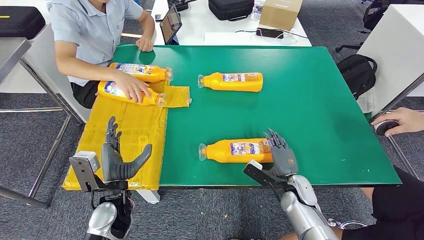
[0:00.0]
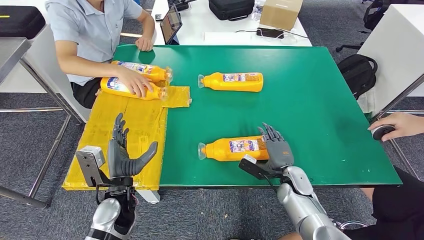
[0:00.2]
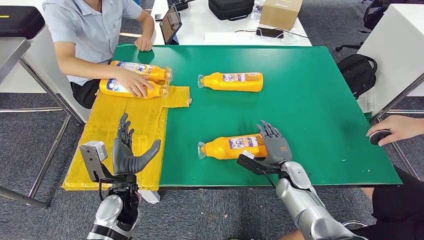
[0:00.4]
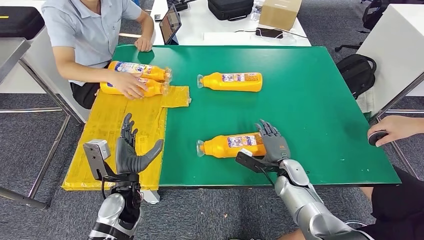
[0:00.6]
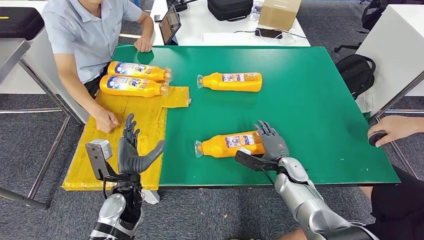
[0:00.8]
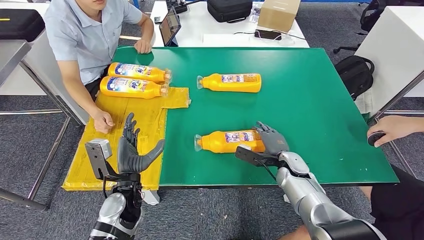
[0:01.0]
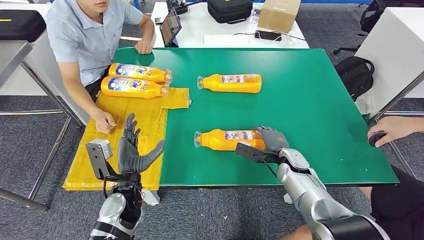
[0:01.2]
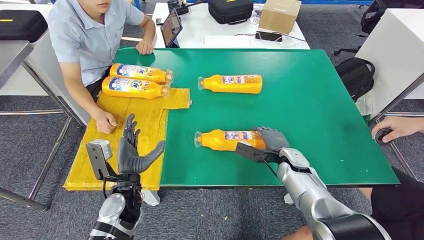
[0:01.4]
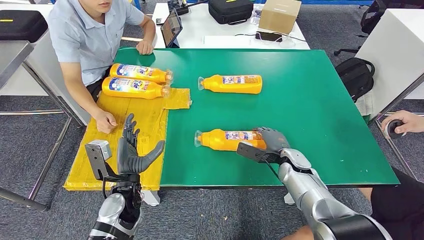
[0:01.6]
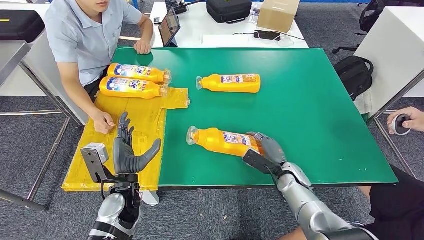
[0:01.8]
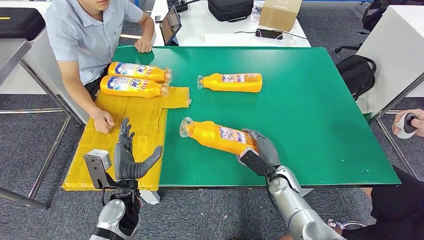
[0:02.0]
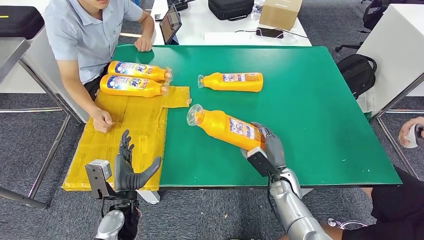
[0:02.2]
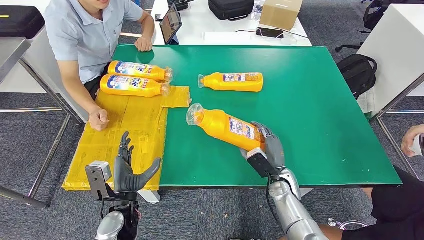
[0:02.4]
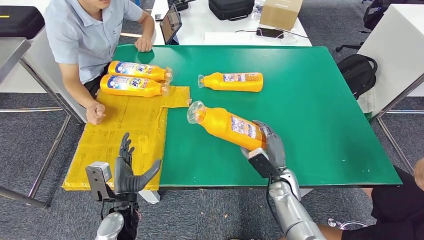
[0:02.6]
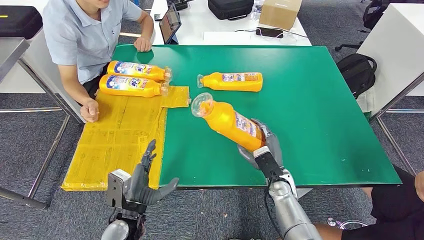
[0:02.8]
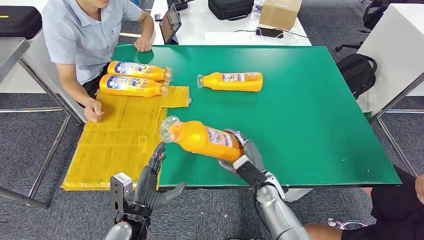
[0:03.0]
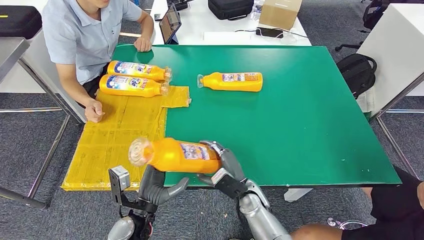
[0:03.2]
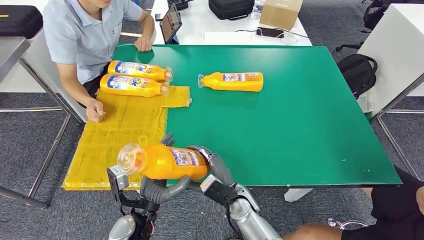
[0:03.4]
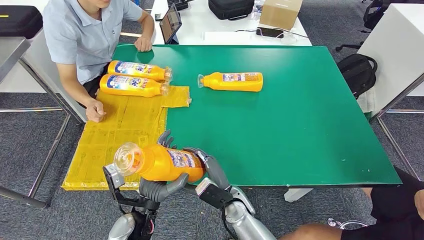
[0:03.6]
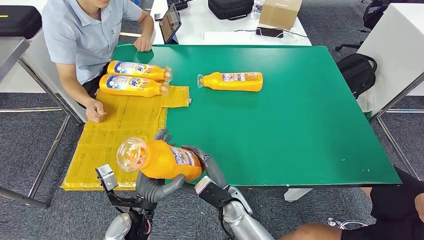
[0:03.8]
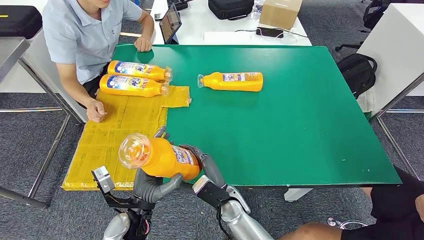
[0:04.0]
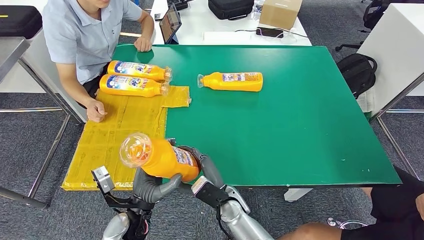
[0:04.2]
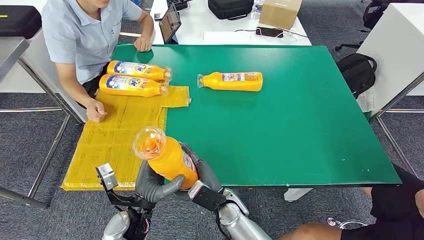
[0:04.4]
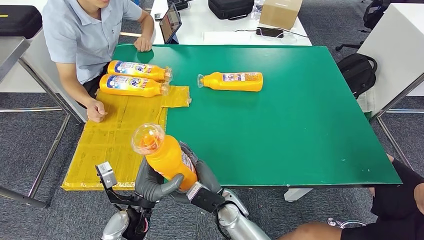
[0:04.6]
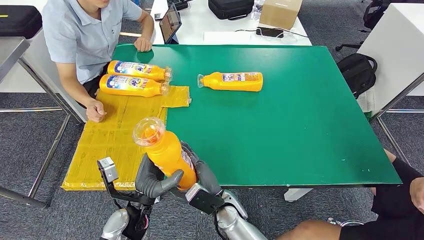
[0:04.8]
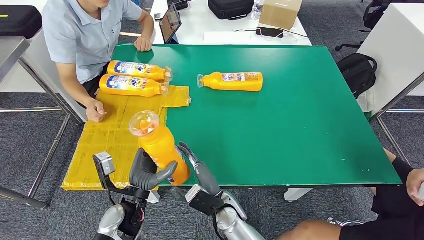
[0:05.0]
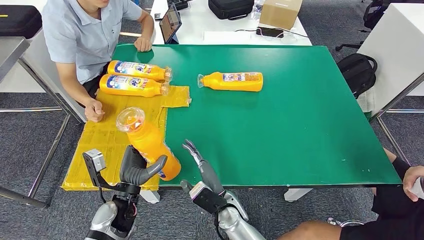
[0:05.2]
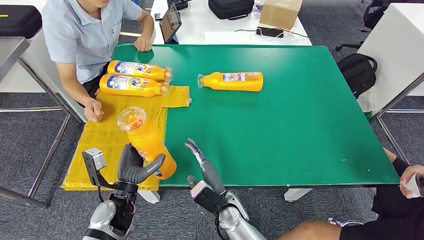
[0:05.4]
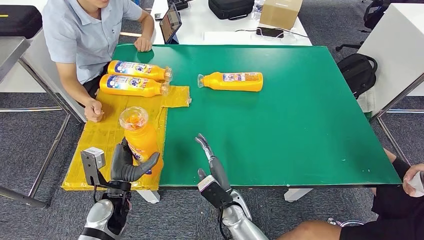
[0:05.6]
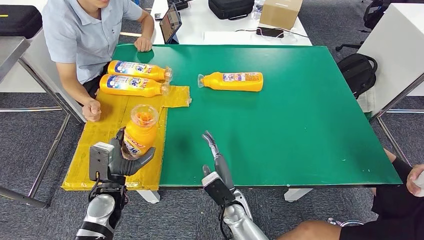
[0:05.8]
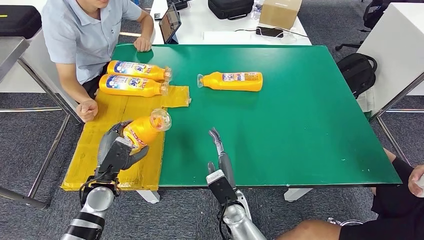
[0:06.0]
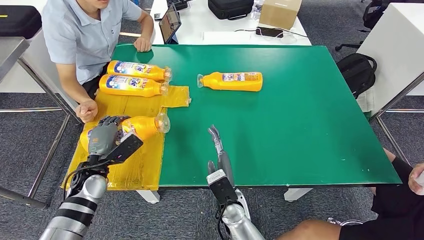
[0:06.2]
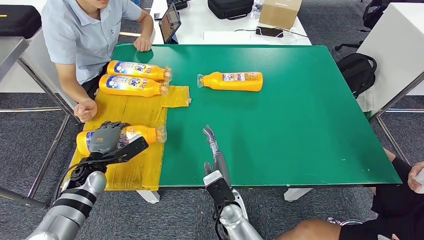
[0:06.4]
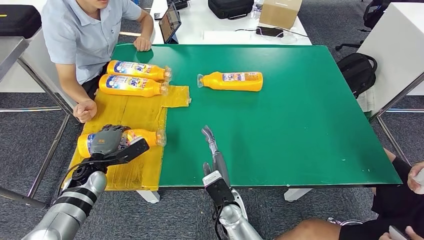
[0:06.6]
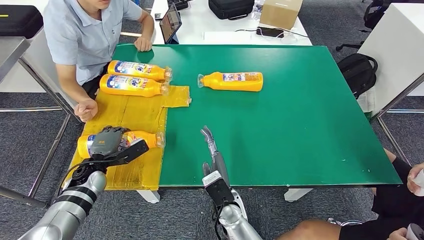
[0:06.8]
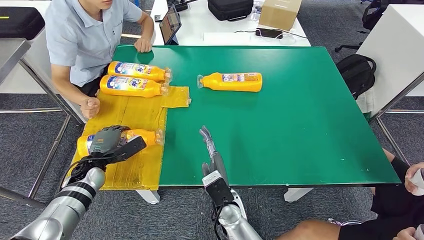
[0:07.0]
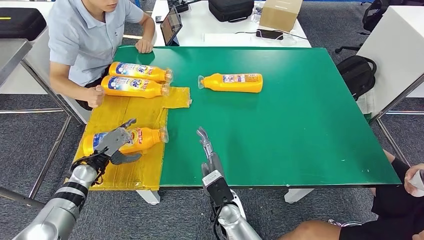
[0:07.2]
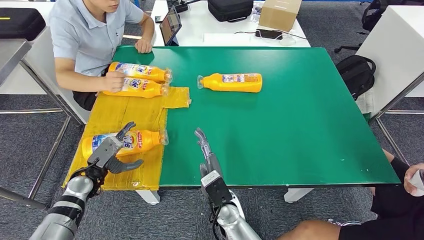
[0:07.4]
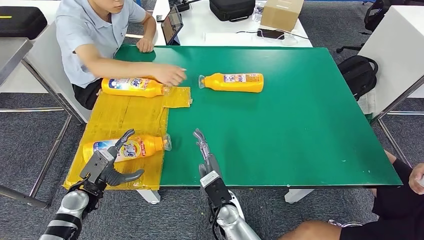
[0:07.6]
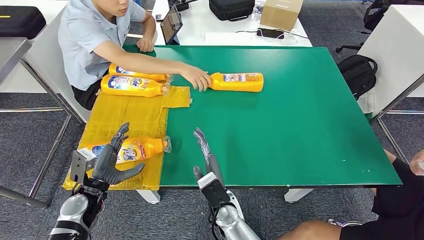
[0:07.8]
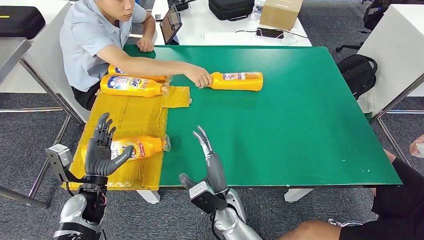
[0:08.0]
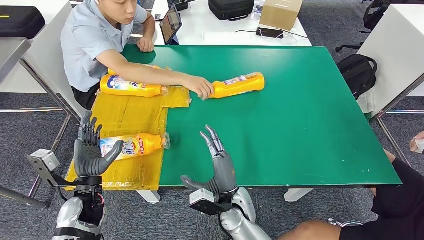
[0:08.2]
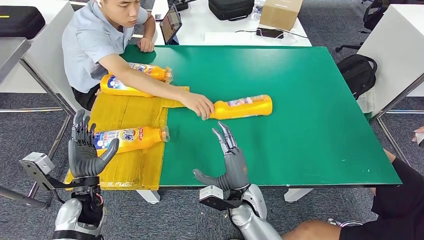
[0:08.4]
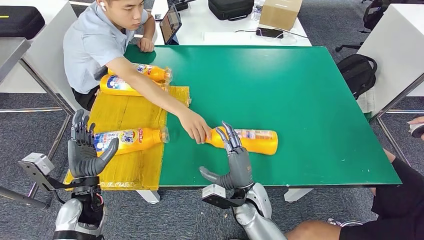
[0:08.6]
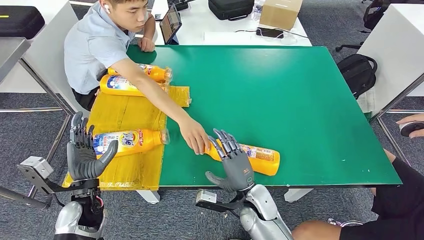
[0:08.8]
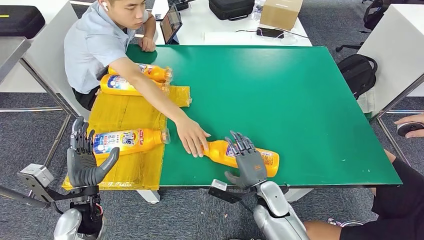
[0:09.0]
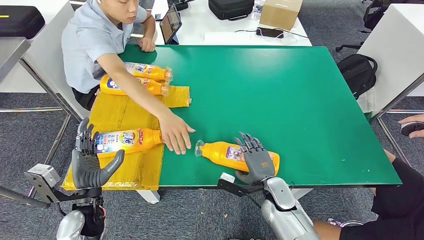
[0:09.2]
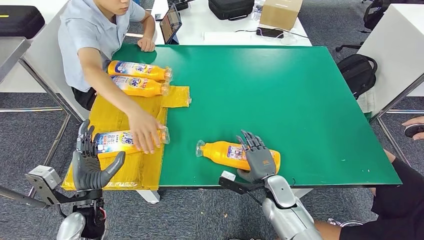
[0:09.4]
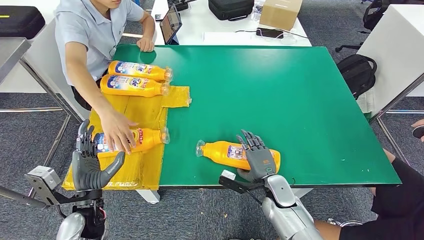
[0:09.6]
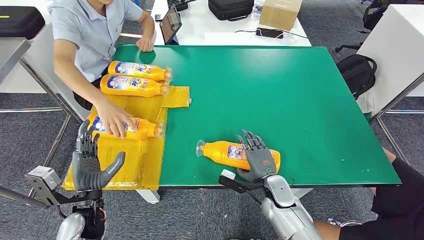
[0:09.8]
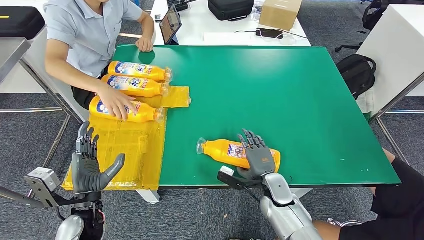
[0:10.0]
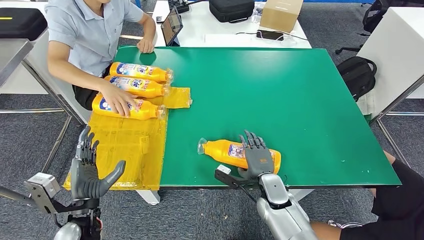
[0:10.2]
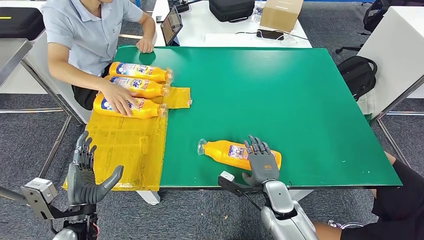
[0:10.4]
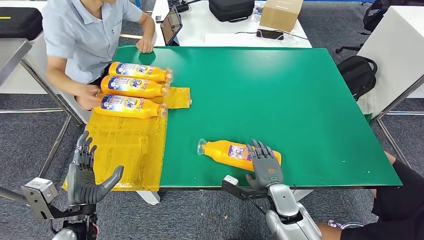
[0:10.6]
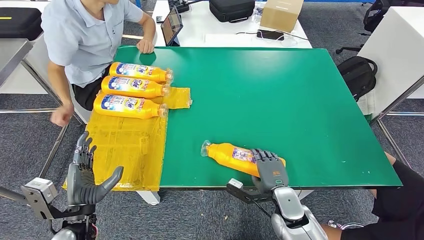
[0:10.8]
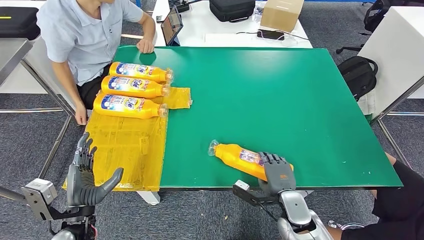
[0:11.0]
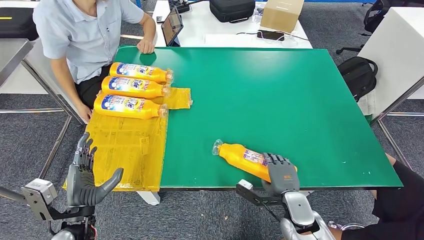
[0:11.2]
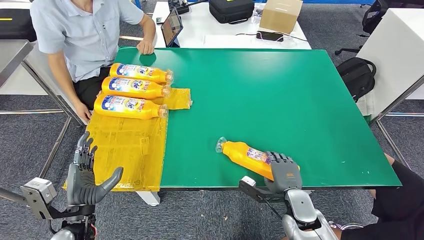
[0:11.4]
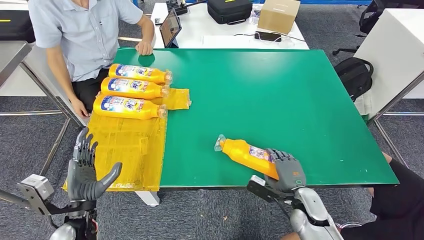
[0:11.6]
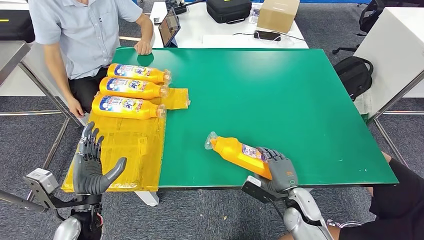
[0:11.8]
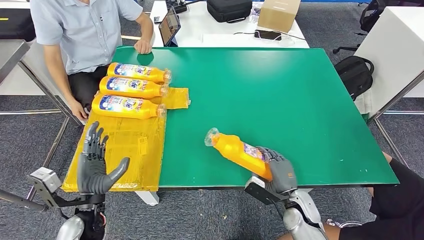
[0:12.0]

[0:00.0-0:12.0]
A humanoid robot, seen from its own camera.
Step, 0:01.2 to 0:03.2: Pick up the fast-moving consumer goods bottle from the table.
Step, 0:04.4 to 0:07.6: Flip the fast-moving consumer goods bottle to the front side.
0:03.0 to 0:04.4: The right hand travels to the left by approximately 10 cm.
0:04.4 to 0:06.0: The left hand shifts roughly 15 cm to the left and forward.

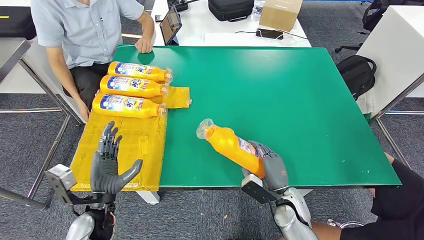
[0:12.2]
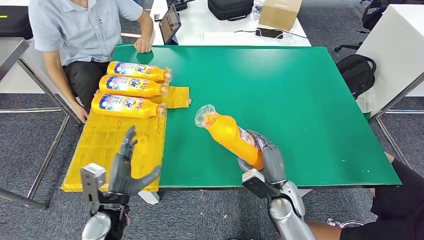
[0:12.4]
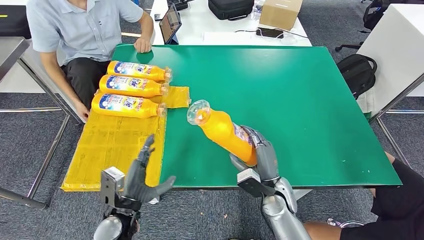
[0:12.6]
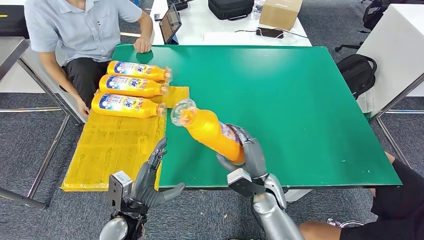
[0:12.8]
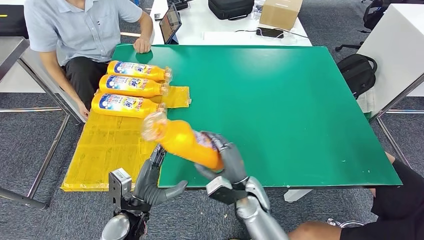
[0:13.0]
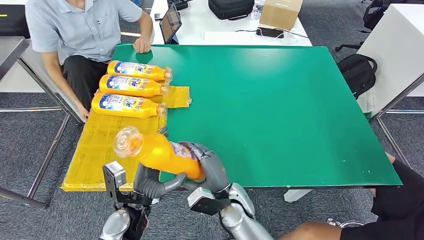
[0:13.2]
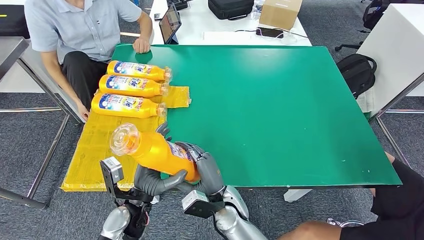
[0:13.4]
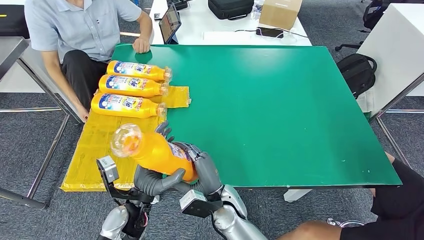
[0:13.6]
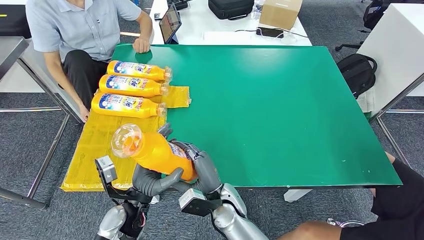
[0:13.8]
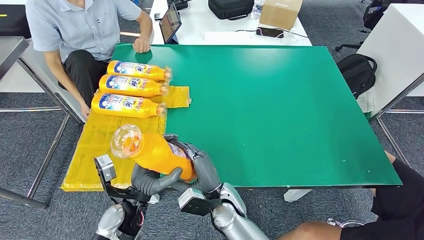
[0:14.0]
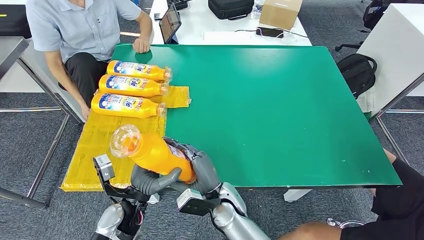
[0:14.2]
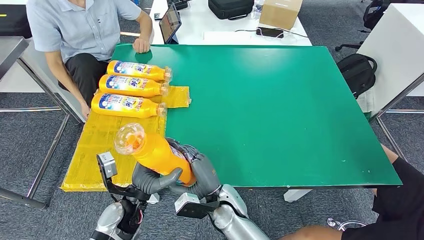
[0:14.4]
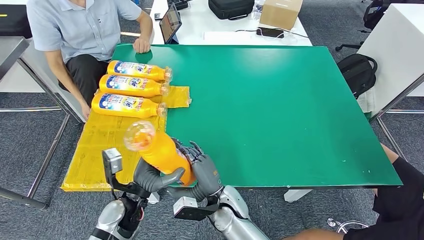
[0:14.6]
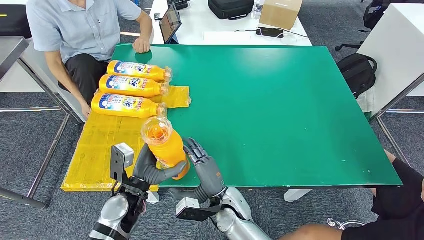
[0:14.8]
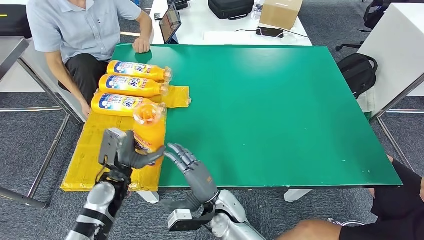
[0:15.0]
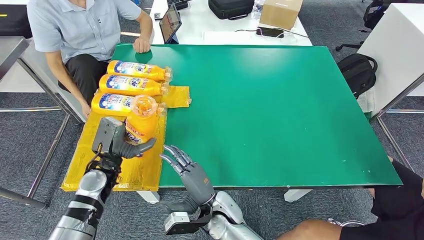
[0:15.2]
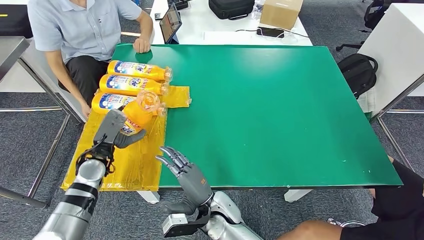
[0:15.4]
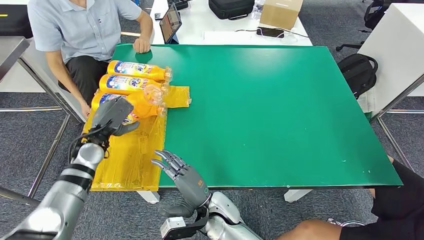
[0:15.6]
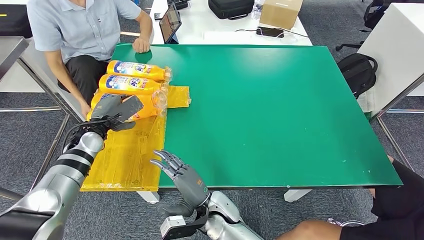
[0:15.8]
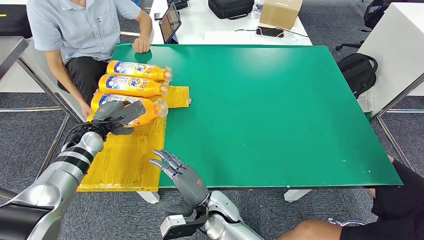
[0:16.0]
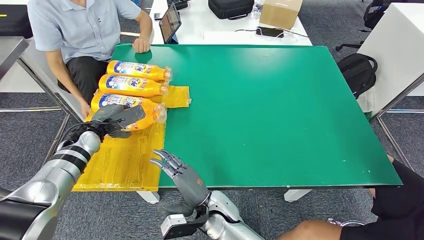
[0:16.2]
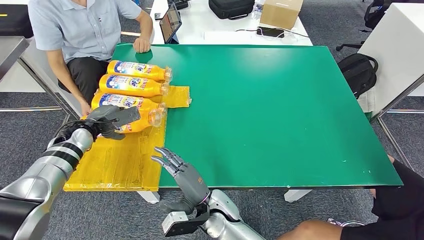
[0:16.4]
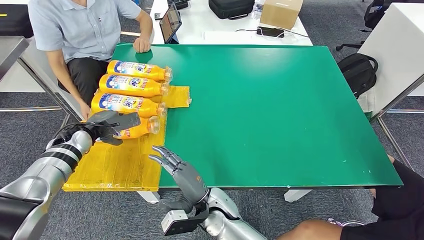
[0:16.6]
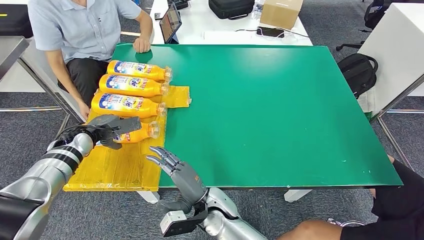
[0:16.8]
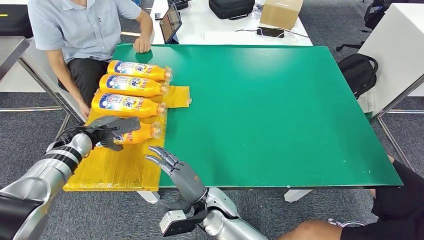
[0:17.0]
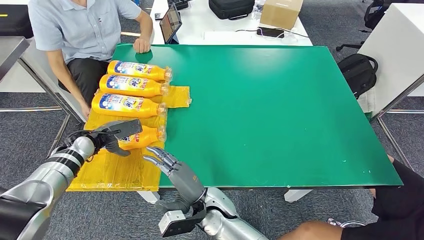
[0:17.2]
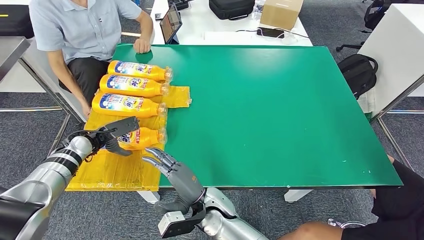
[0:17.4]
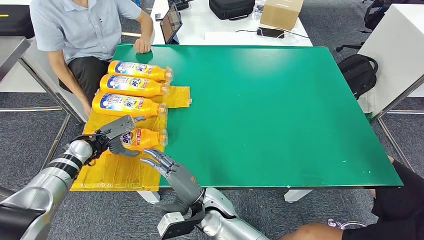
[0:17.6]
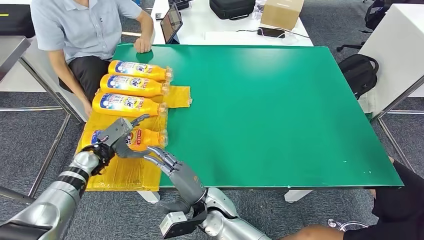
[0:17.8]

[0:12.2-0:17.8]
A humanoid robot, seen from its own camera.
Step, 0:14.4 to 0:17.6: Flip the fast-moving consumer goods bottle to the front side.
0:13.6 to 0:15.0: The left hand moves to the left and forward, approximately 10 cm.
0:15.0 to 0:16.4: The left hand moves forward and to the left, roughly 20 cm.
0:16.4 to 0:17.8: The left hand is displaced downward by about 5 cm.
